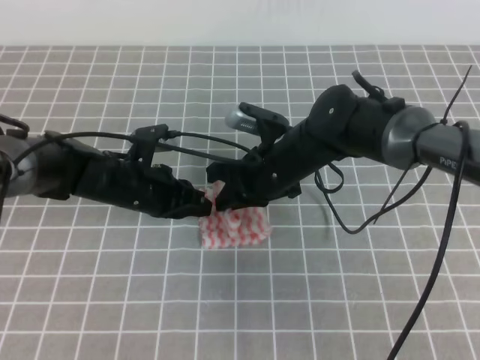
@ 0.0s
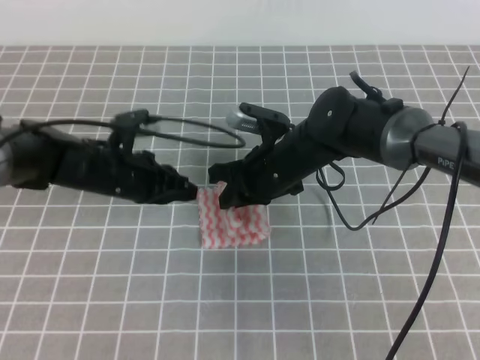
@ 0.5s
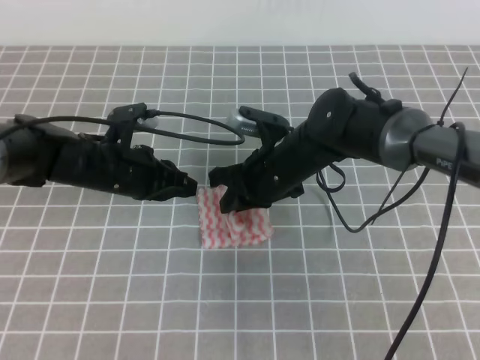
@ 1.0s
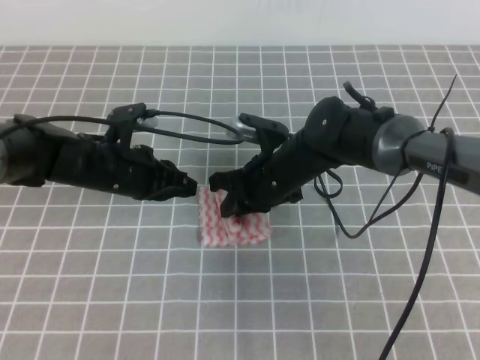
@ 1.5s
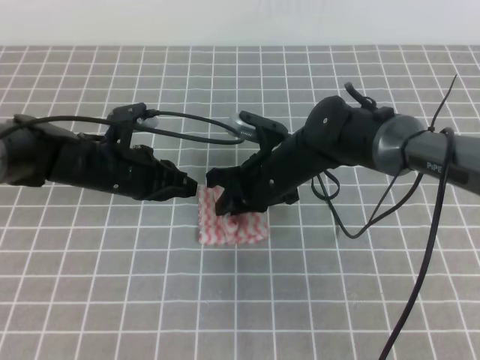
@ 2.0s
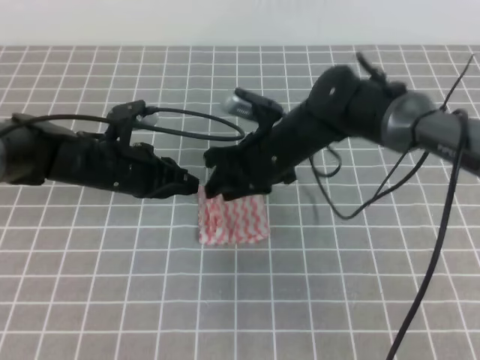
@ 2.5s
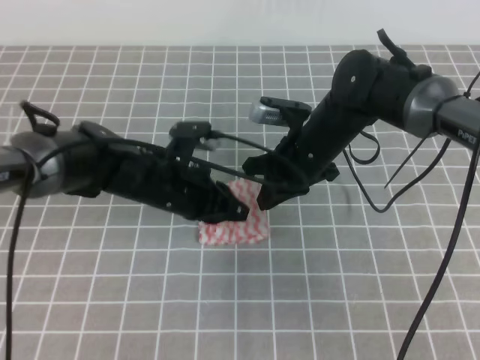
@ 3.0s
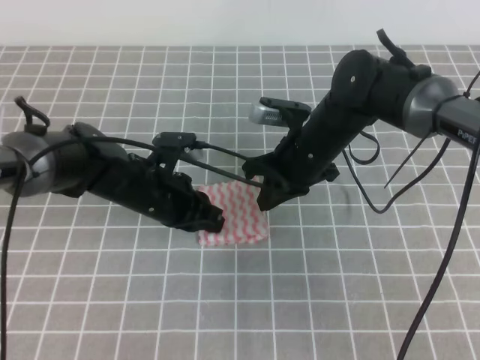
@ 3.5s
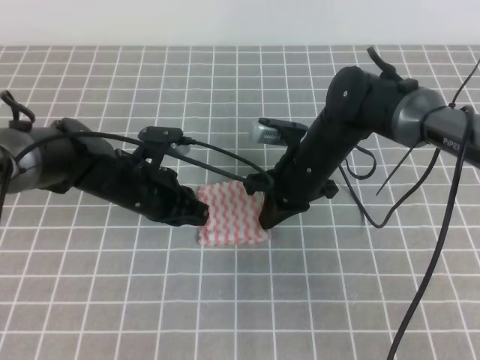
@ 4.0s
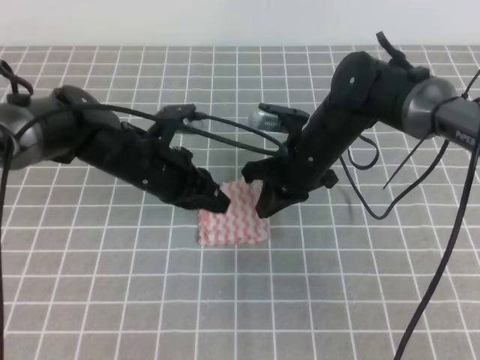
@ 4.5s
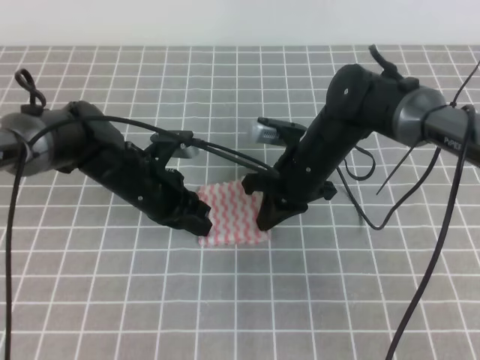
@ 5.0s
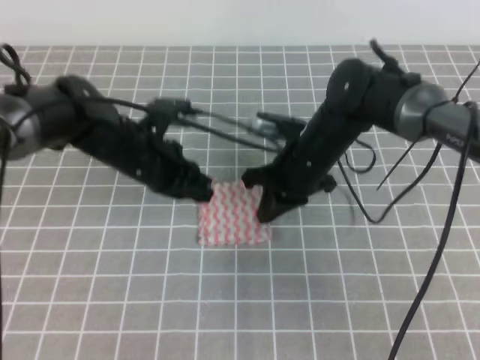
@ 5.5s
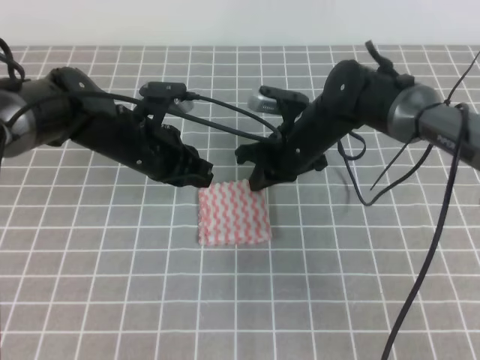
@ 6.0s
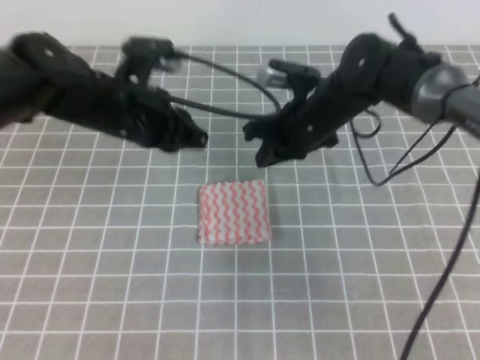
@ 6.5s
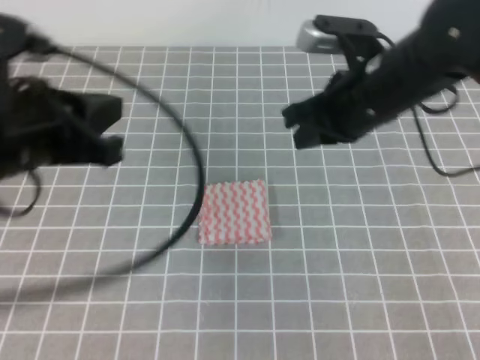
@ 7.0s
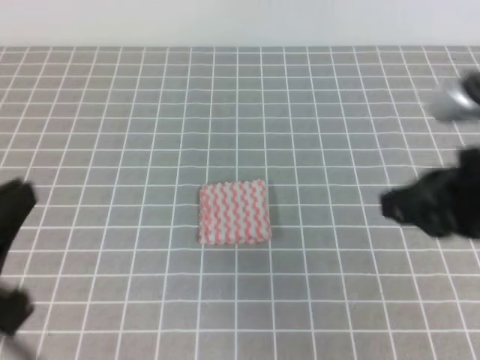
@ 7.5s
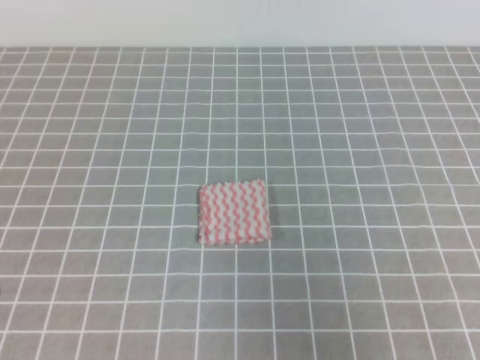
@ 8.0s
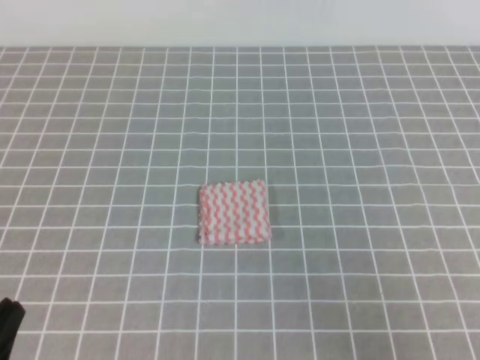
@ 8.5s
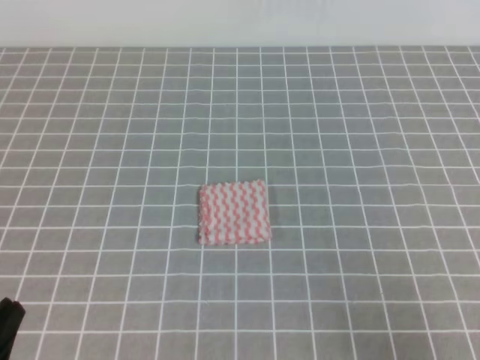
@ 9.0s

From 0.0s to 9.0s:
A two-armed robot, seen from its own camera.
From 0.0s to 2.0s: The right gripper opens.
From 2.0s to 4.5s: The right gripper closes its fingers.
From 4.5s to 7.0s: The right gripper heads upward, covering approximately 10 cm; the left gripper heads upward, backward and to the left, covering roughly 20 cm.
From 7.0s to 9.0s: The right gripper is displaced backward and to the right by about 30 cm. The left gripper travels backward and downward by some 25 cm.
